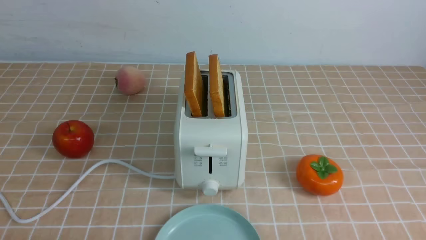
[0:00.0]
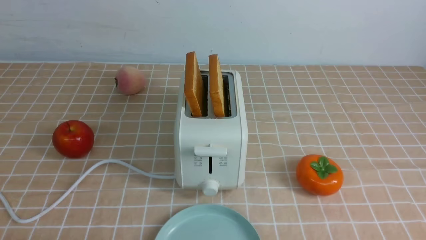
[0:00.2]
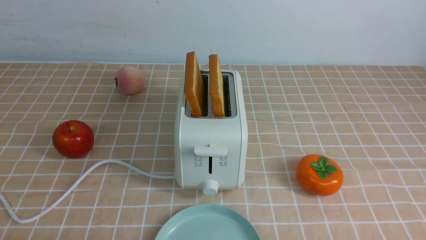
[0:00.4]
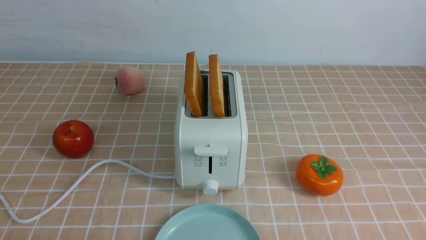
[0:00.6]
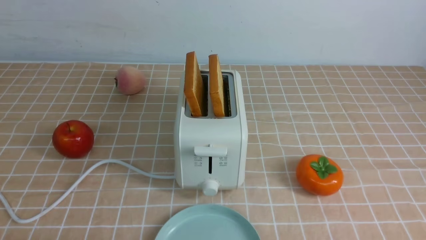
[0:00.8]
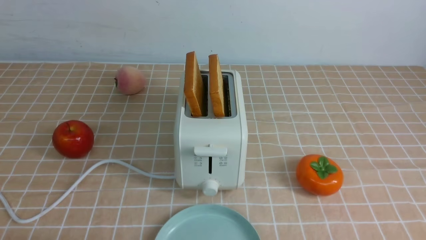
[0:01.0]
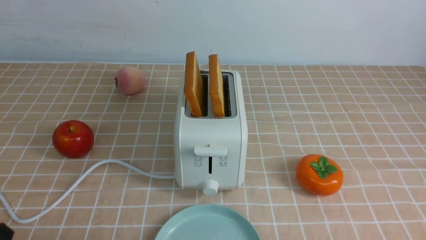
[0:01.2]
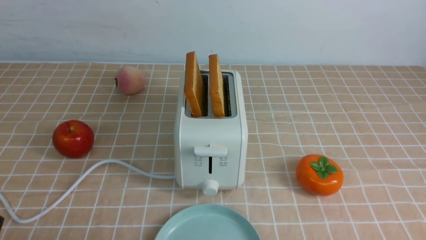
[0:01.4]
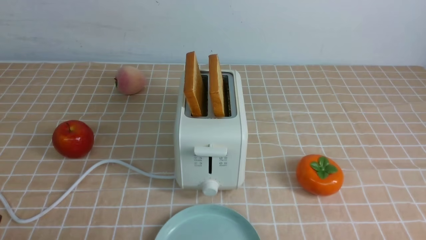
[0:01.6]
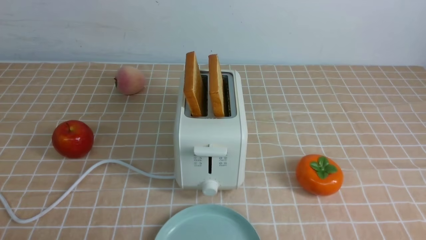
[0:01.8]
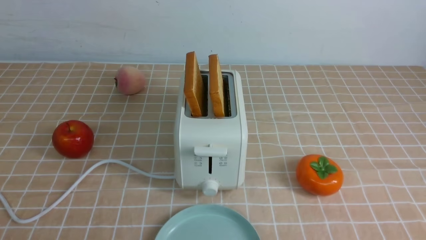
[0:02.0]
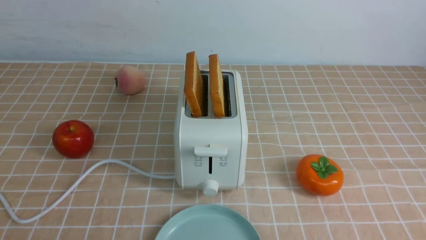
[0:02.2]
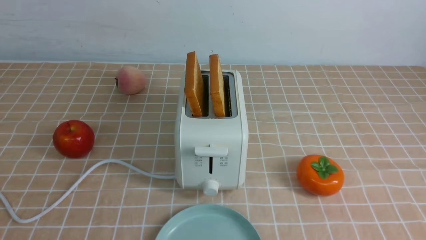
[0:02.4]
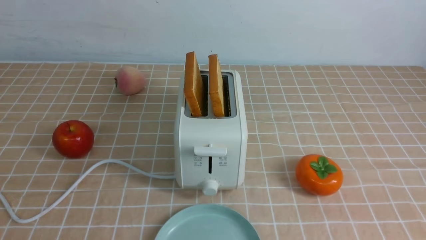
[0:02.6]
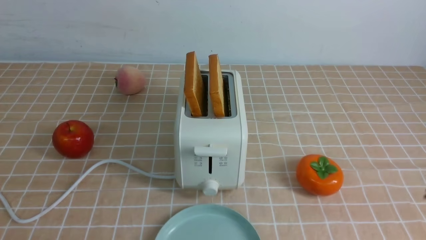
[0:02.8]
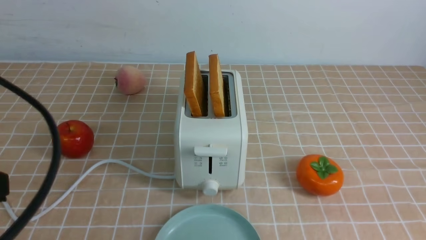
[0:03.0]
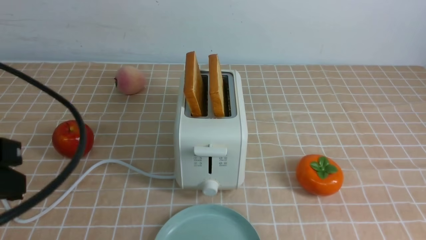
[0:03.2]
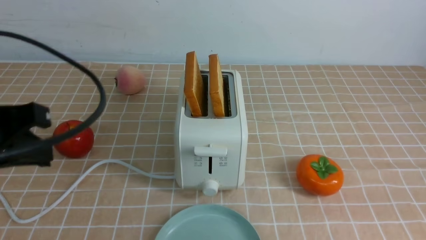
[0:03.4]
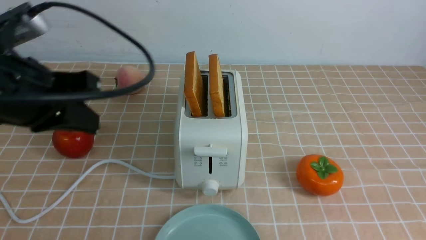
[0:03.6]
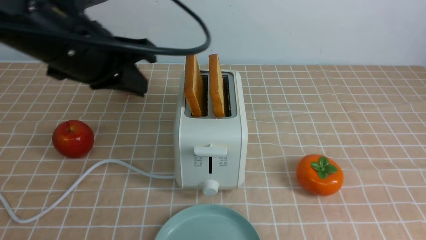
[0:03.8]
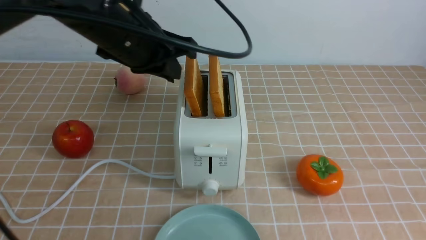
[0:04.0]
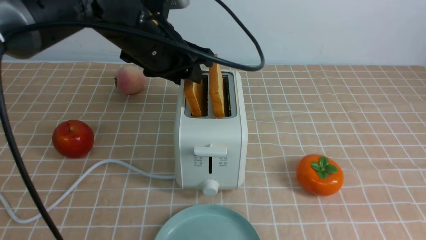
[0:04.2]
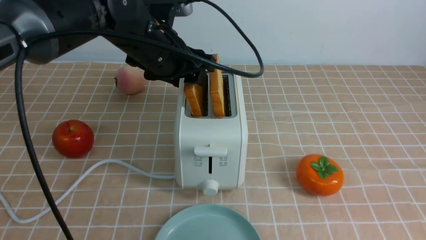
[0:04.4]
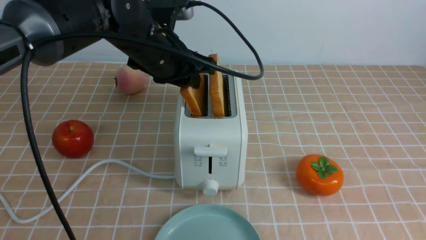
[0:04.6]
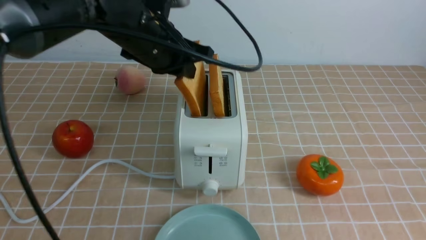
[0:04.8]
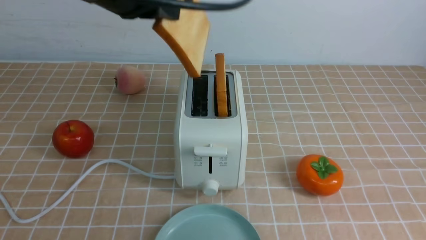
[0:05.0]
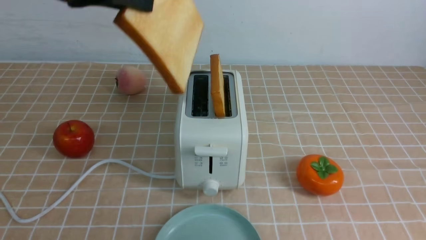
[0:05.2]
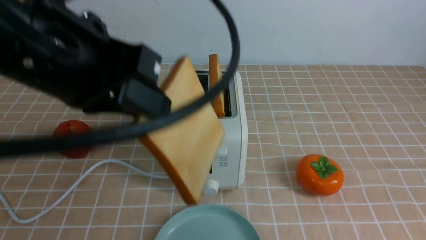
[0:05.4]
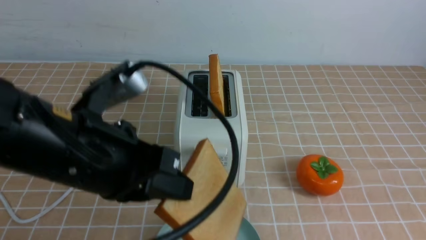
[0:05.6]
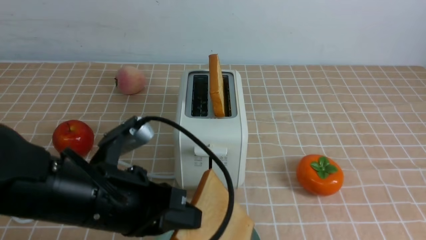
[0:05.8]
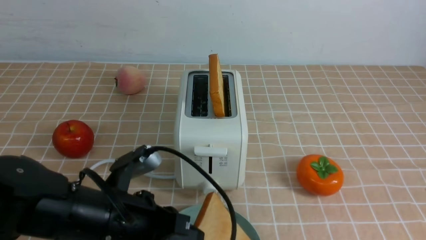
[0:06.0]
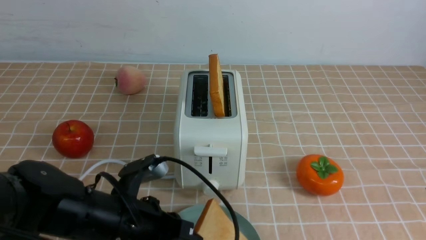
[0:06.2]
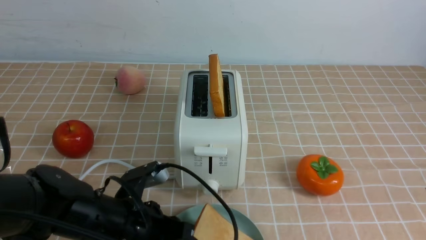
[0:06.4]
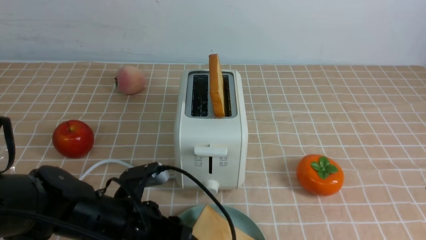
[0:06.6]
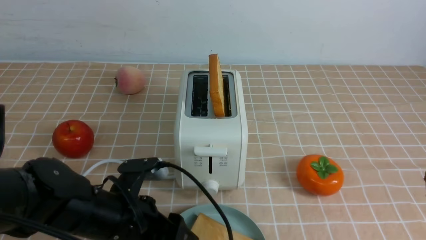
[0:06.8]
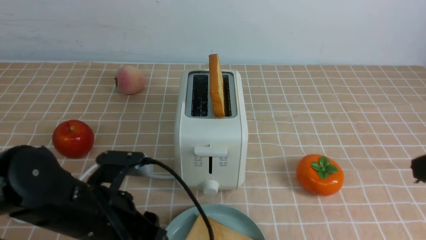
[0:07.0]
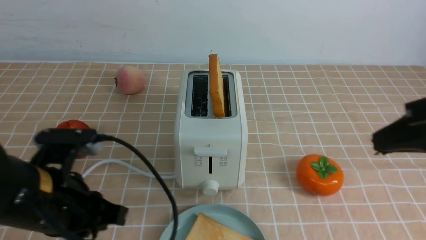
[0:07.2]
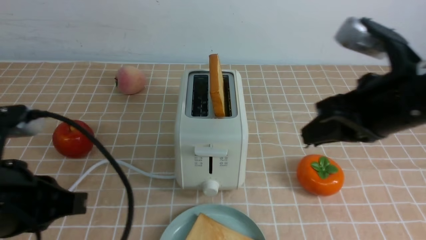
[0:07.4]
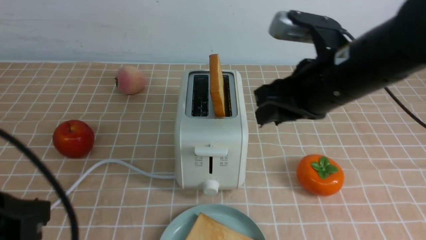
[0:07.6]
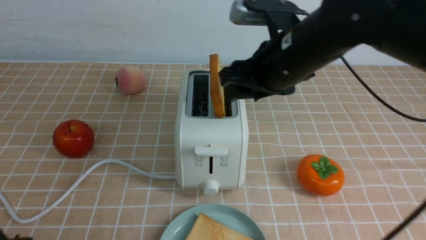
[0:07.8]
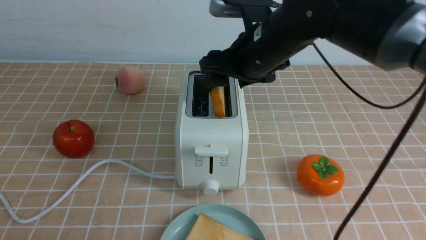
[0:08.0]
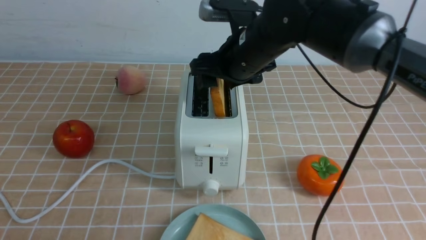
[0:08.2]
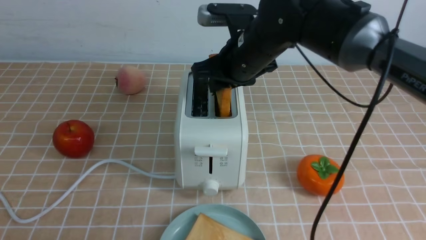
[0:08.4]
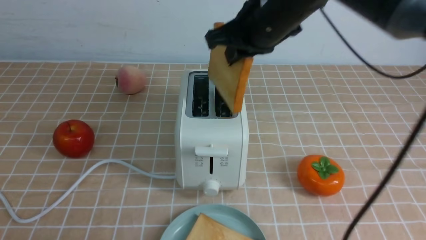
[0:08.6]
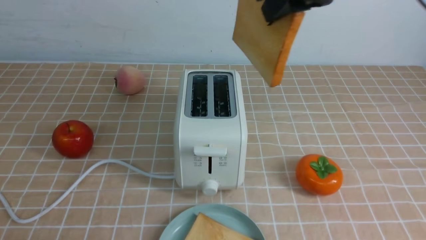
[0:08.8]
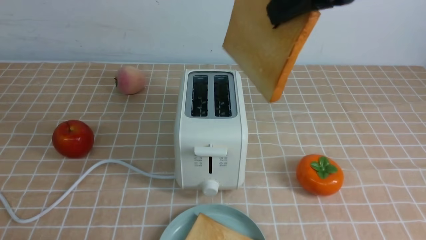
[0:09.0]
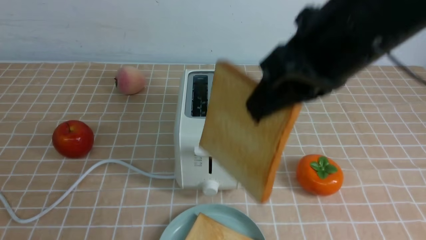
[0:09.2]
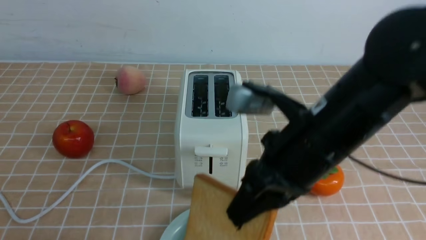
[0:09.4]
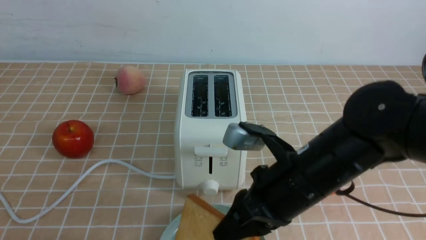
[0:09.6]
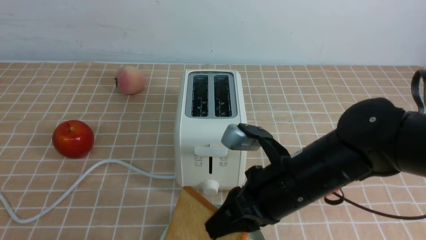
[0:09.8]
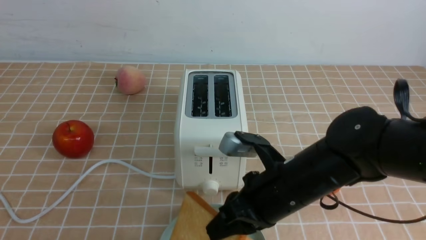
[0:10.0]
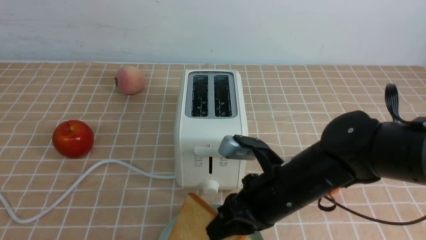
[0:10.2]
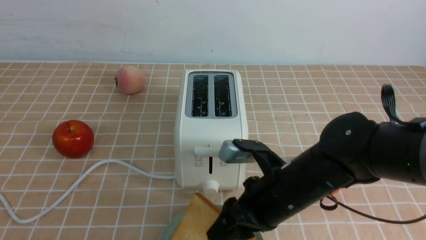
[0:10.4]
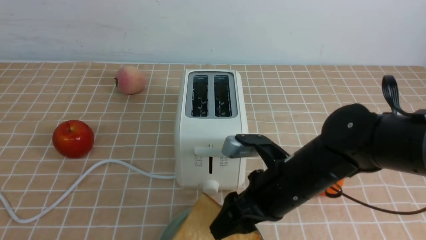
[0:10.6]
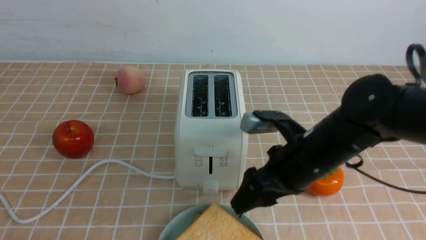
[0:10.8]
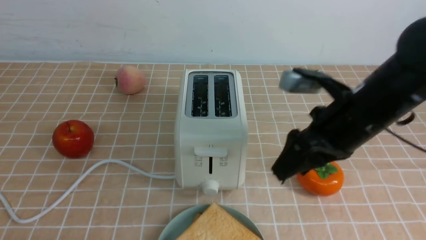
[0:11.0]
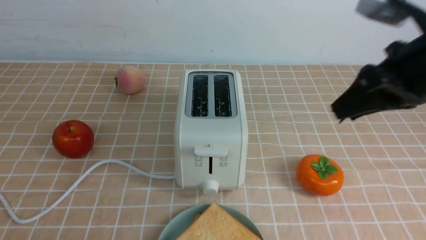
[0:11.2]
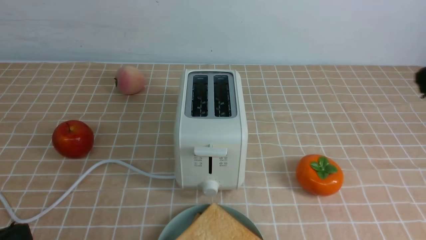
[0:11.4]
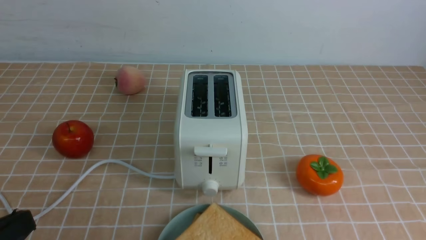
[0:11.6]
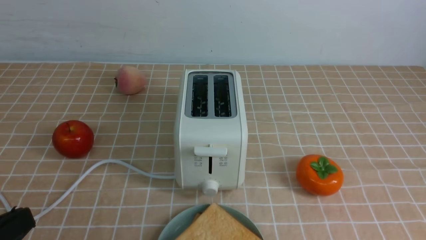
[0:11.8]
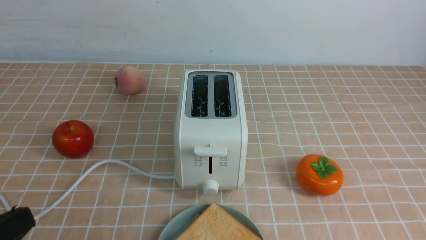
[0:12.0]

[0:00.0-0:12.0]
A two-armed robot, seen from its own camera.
Task of the whole recording: take toasted bread from bread machine on light coffee tablecloth place on plate.
Step, 0:00.0 to 0:04.8: use the left arm to take out a slice of bread.
Step, 0:05.0 to 0:06.8: use the left arm to put a slice of bread into the empty plate.
Step, 0:07.0 to 0:08.4: use the right arm to take out a slice of bread.
Step, 0:08.6 to 0:10.8: use the right arm to put a slice of bread into the plate.
0:01.6 to 0:03.0: The left gripper heads upward, covering about 15 cm, and closes.
0:03.0 to 0:04.4: The left gripper moves forward and to the right, some 30 cm, and opens up.
0:04.4 to 0:06.0: The left gripper is displaced backward and downward by about 20 cm, and closes its fingers.
0:06.0 to 0:07.6: The right gripper moves forward and to the left, about 25 cm, and opens up, while the left gripper travels to the left, backward and upward by roughly 15 cm, and opens and closes again.
0:07.6 to 0:09.0: The left gripper is displaced backward by about 5 cm. Meanwhile the right gripper moves upward, approximately 10 cm, and closes up.
0:09.0 to 0:10.4: The right gripper shifts some 25 cm downward, and opens up.
0:10.4 to 0:12.0: The right gripper heads to the right, backward and upward, covering roughly 30 cm, and closes its fingers.

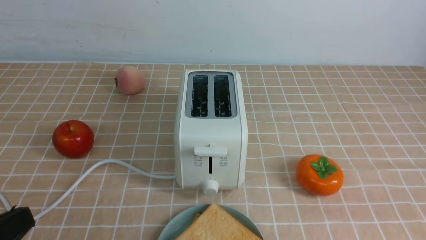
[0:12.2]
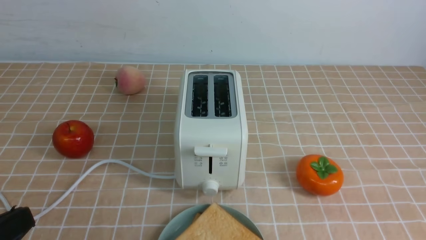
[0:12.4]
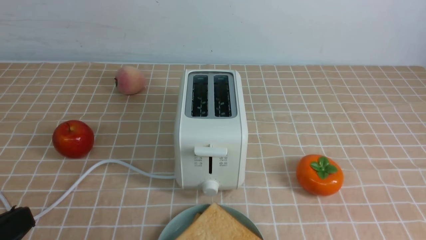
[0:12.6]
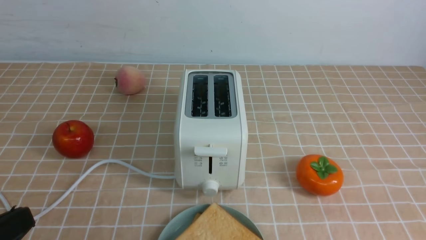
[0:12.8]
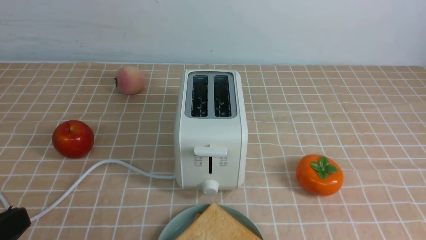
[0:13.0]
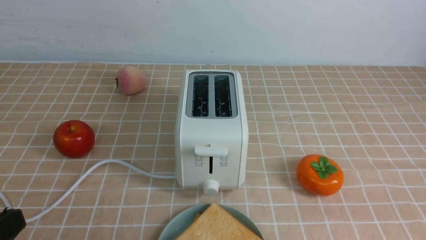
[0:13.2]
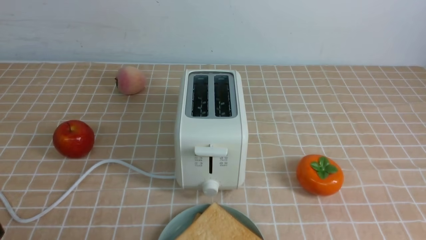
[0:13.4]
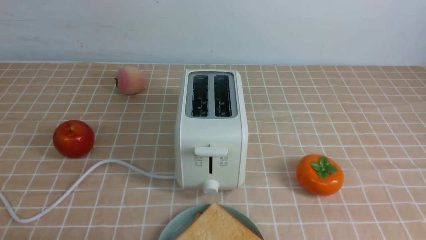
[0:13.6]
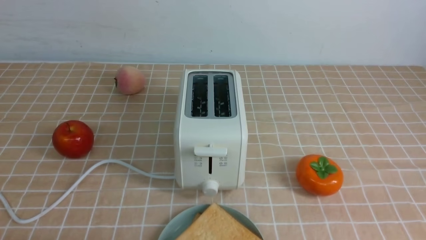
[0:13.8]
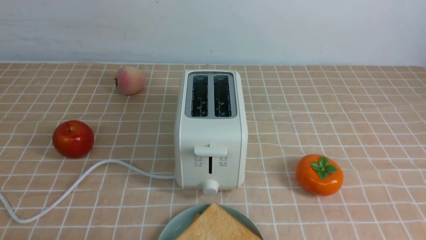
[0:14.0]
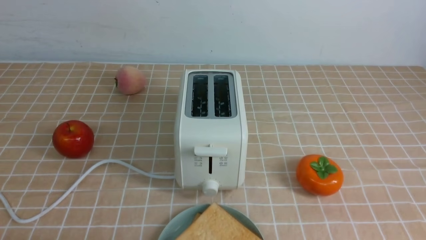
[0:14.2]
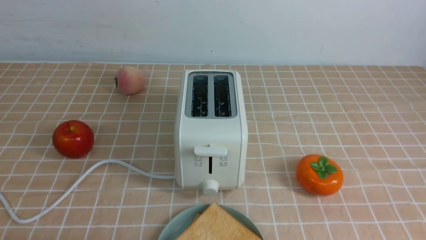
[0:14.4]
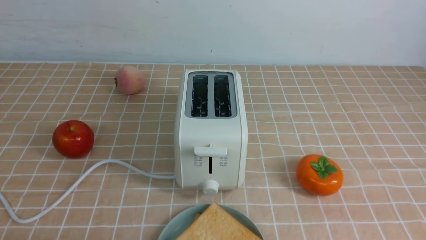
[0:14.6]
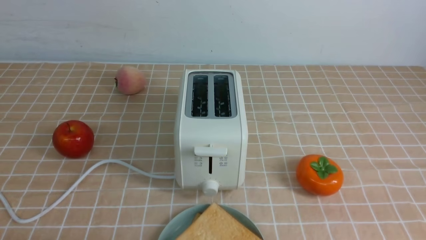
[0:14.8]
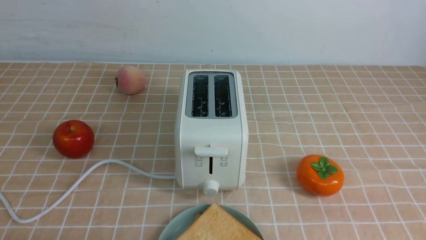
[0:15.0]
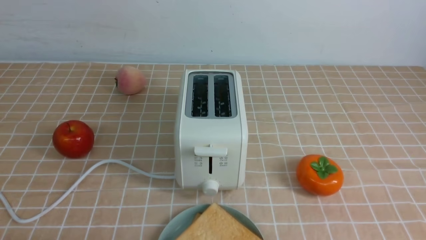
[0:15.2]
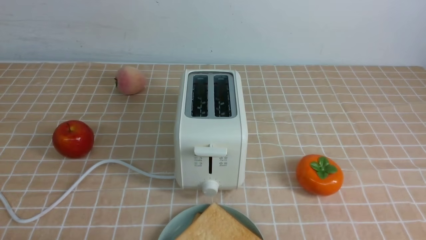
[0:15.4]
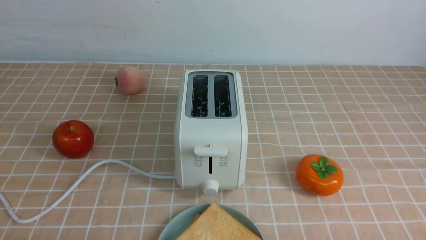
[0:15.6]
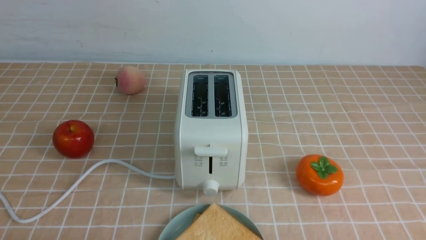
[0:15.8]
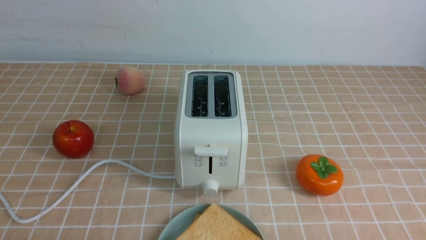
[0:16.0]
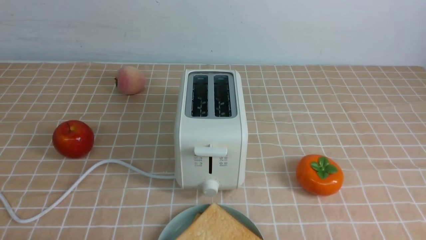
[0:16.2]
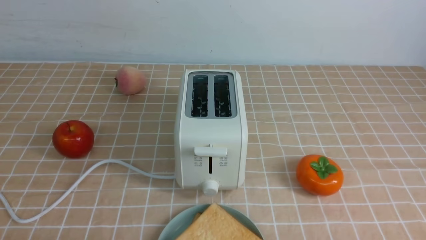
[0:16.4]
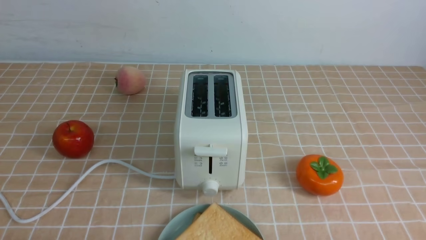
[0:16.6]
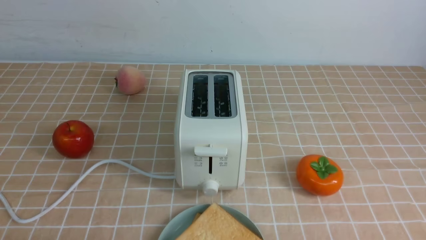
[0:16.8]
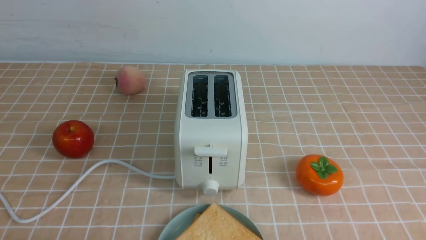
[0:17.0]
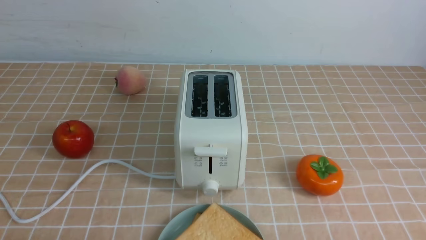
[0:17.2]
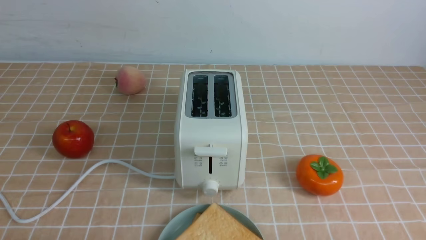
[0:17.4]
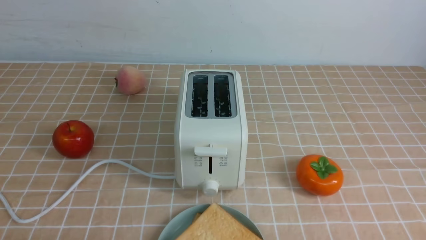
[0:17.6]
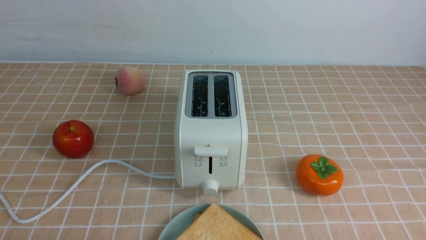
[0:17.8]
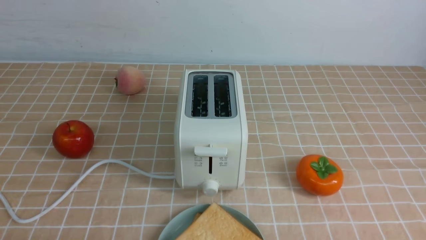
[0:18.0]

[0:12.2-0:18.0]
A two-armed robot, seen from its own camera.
Task of the whole recording: take toasted bread from bread machine on light coffee tablecloth place on plate.
0:12.2 to 0:13.6: The left gripper travels downward by some 10 cm.
0:16.6 to 0:18.0: The two grippers keep their place.
